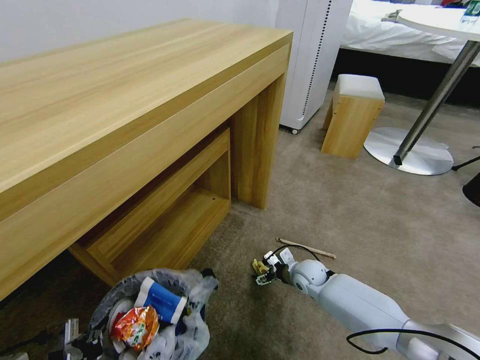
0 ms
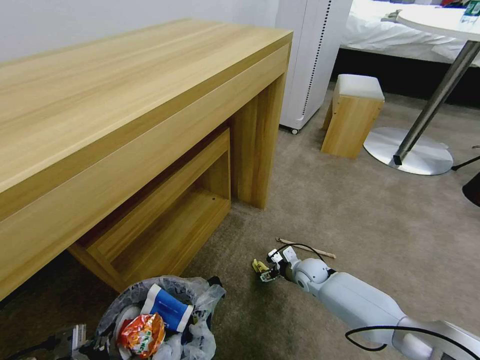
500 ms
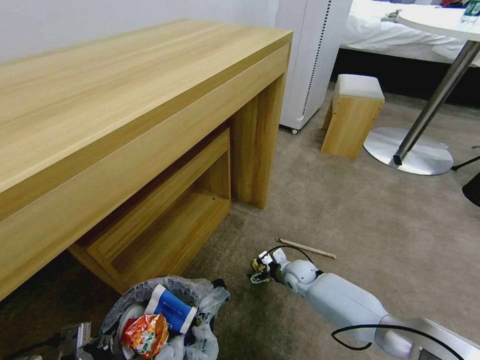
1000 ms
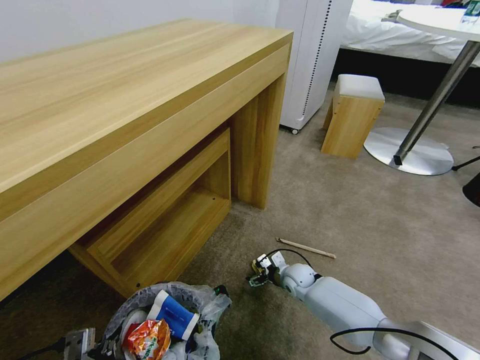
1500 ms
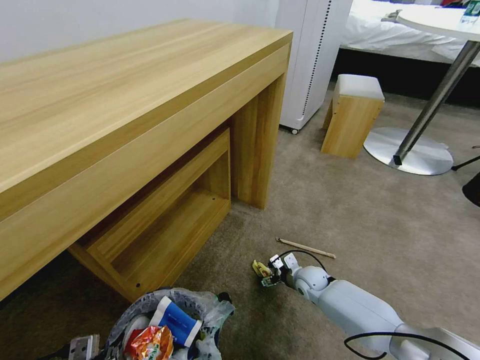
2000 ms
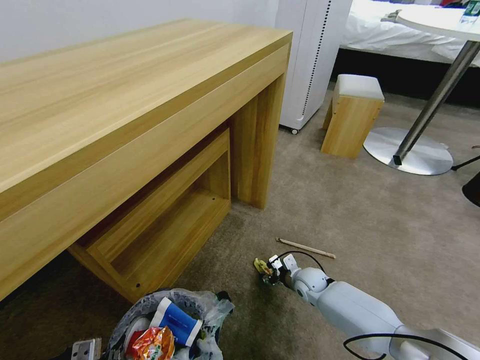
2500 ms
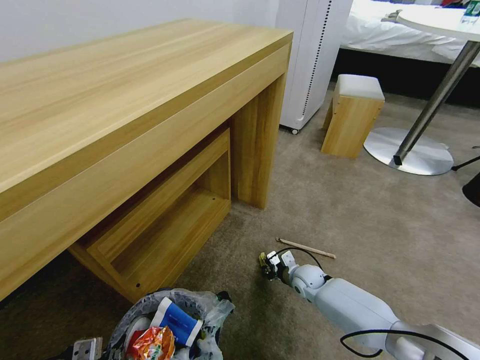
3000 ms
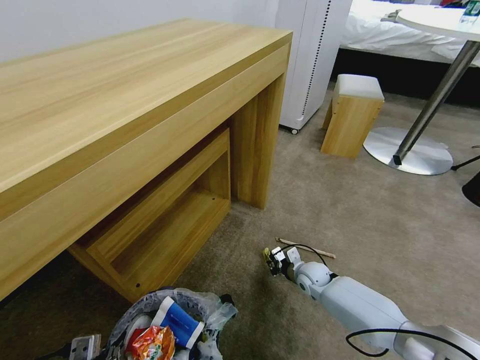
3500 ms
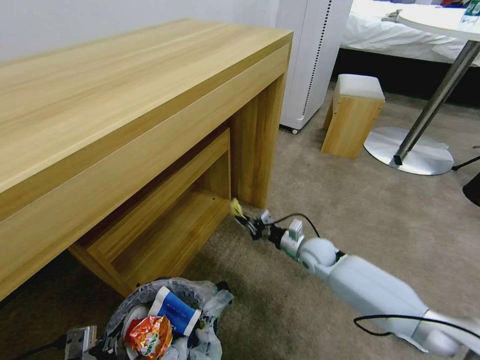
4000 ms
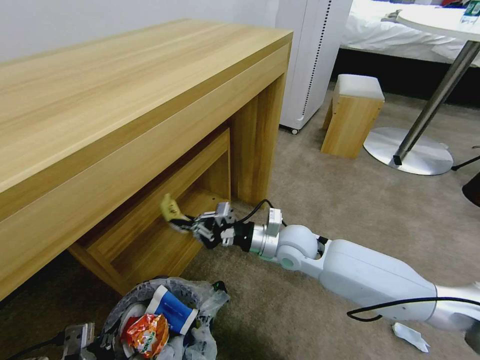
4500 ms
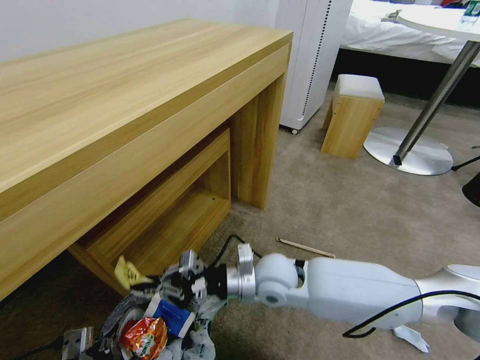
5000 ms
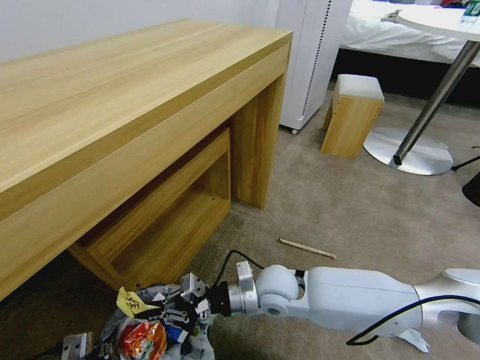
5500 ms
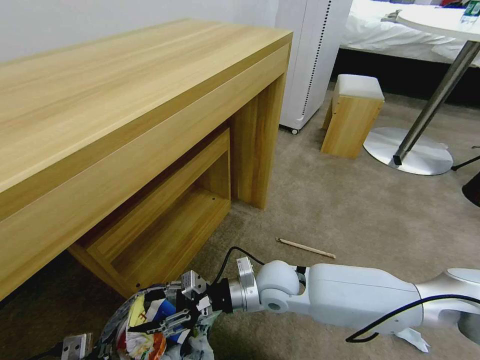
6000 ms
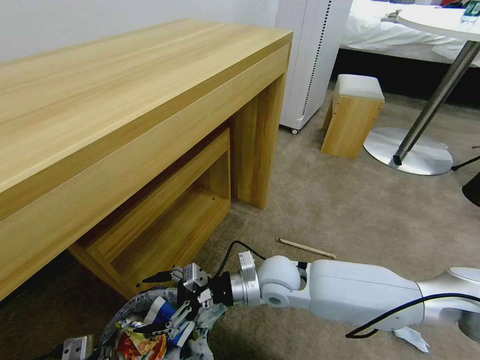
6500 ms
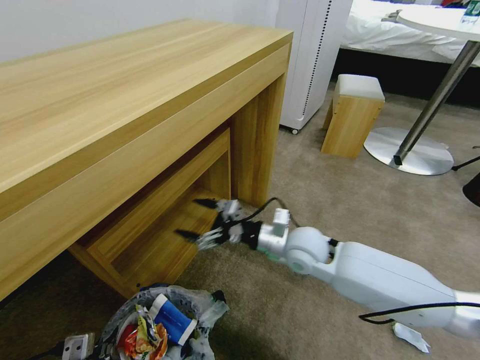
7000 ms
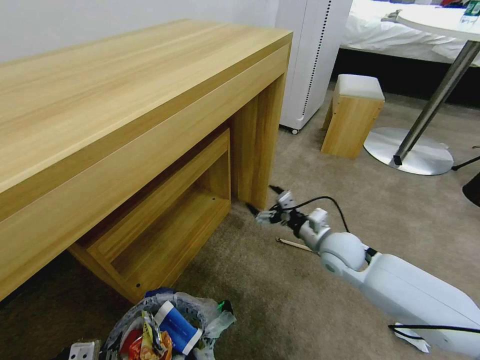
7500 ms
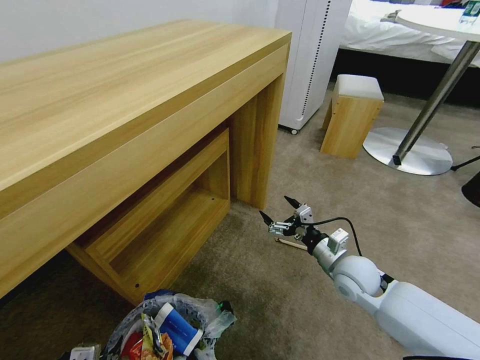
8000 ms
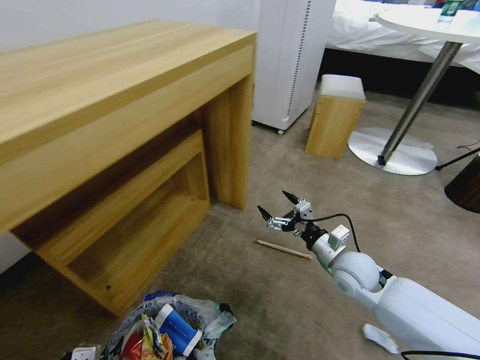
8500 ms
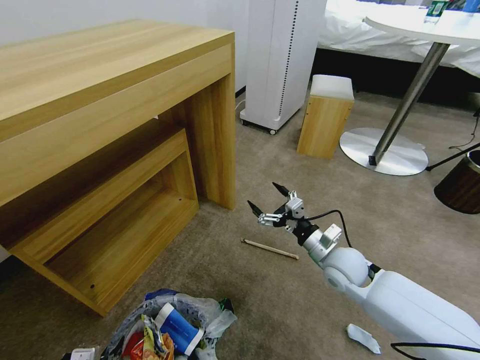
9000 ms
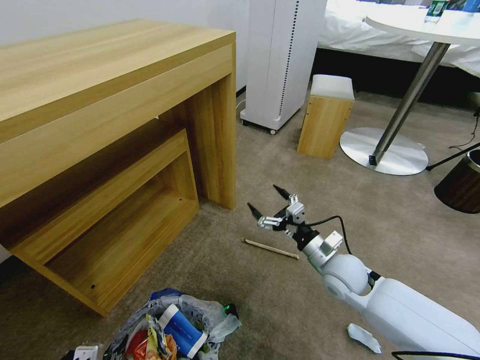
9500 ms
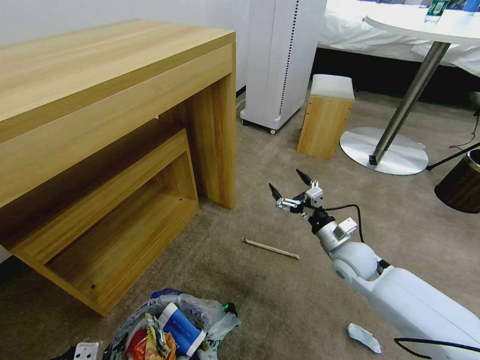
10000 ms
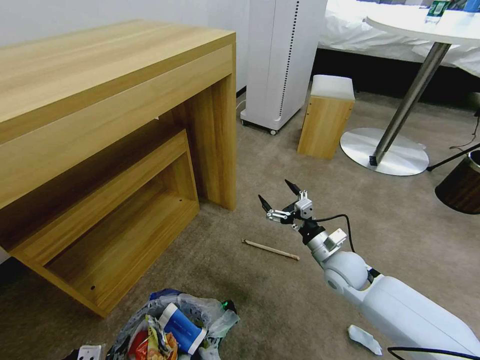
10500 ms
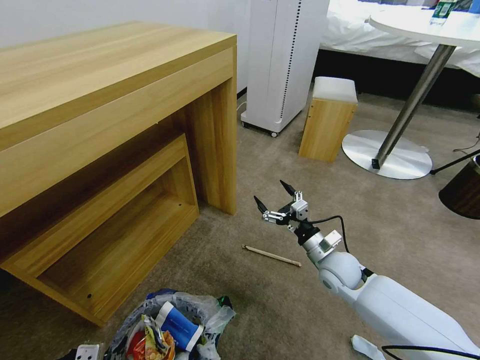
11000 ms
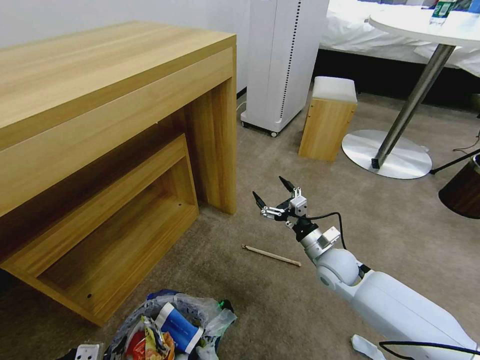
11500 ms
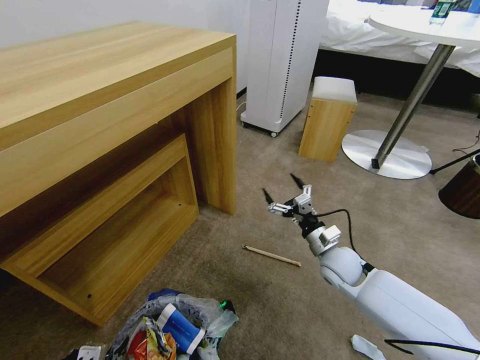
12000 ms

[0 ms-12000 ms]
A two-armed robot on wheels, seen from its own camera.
Task of the whole recording: Pick up the trash bin and place the garbage on the floor into it.
0 ms to 2000 ms: The grippers stay close to where they were, moving slightly.
2000 ms to 4000 ms: The right gripper travels upward by approximately 10 cm, and closes.
4000 ms to 6000 ms: The right gripper is displaced to the left, upward and backward by some 20 cm, and opens its fingers.
6000 ms to 8000 ms: The right gripper is displaced to the right by roughly 20 cm, and opens up.
10000 ms to 12000 ms: The grippers make only small movements.

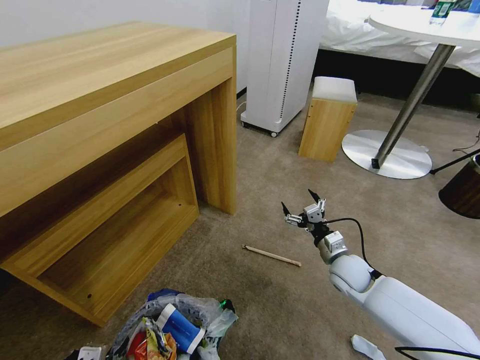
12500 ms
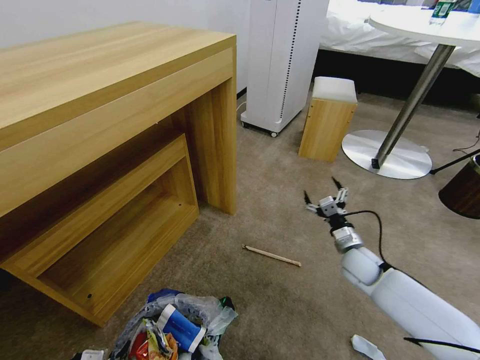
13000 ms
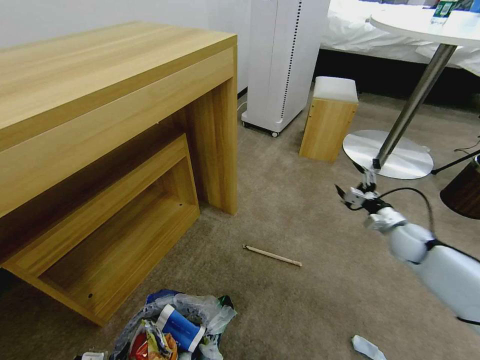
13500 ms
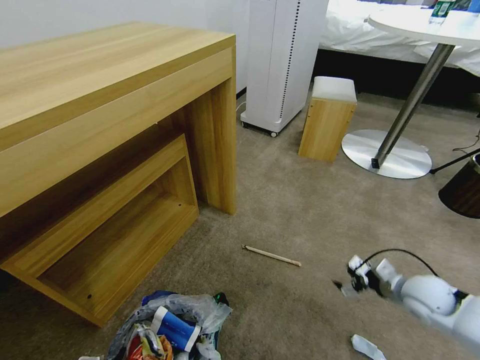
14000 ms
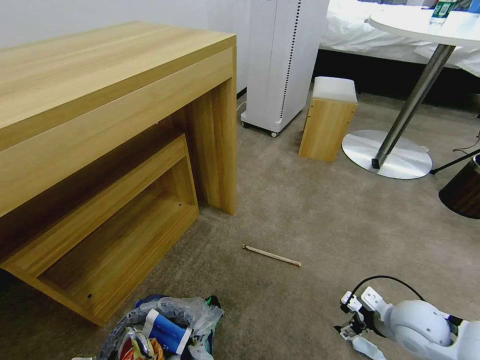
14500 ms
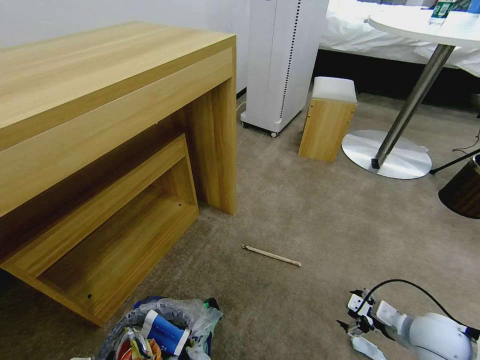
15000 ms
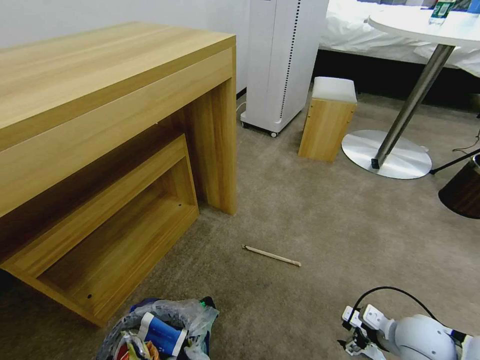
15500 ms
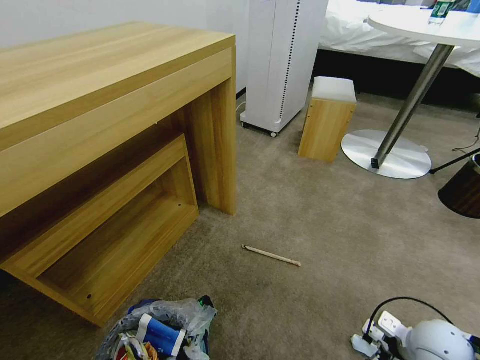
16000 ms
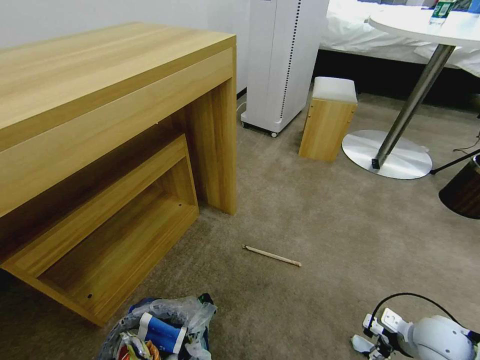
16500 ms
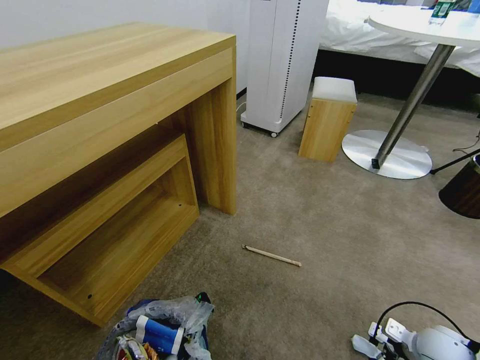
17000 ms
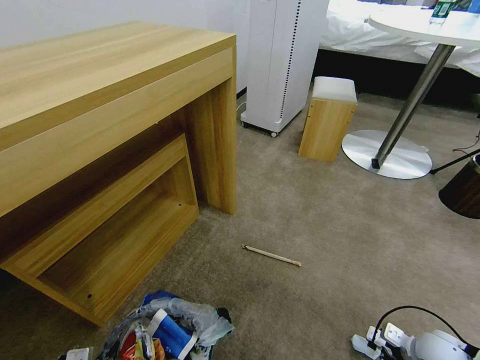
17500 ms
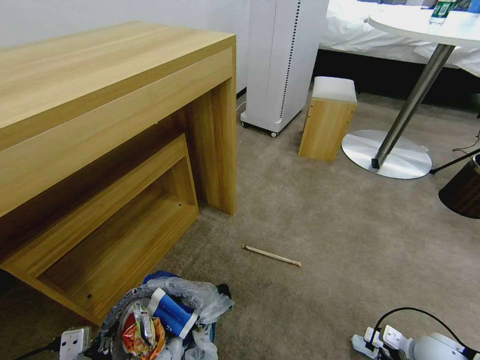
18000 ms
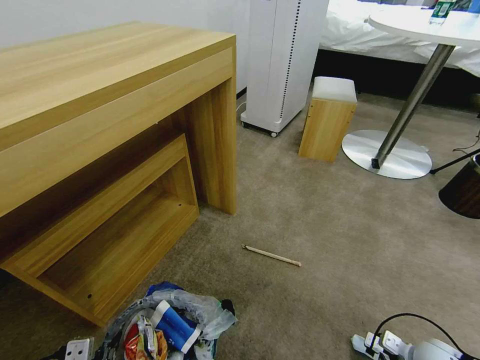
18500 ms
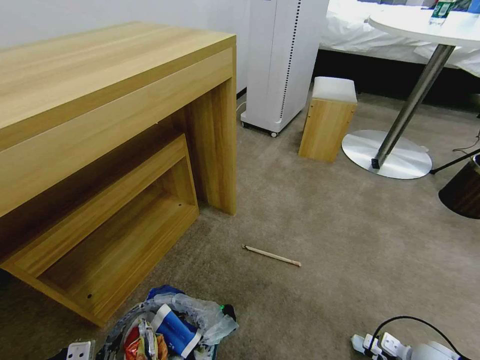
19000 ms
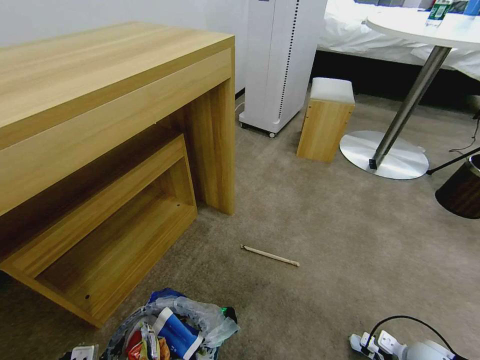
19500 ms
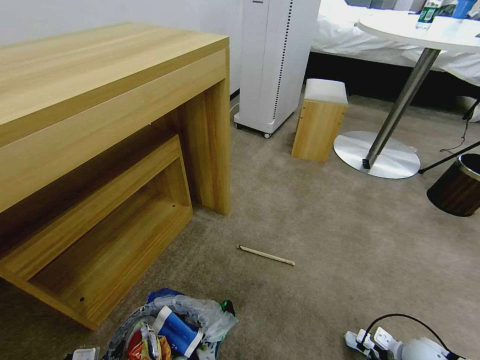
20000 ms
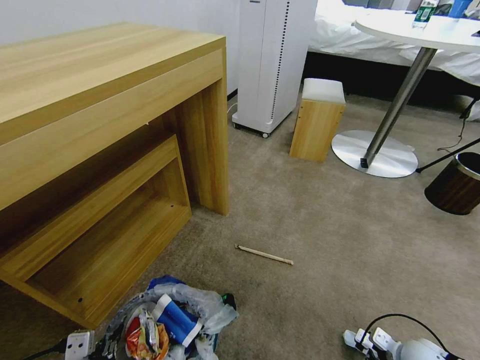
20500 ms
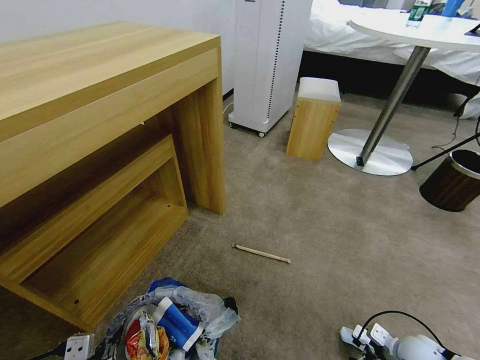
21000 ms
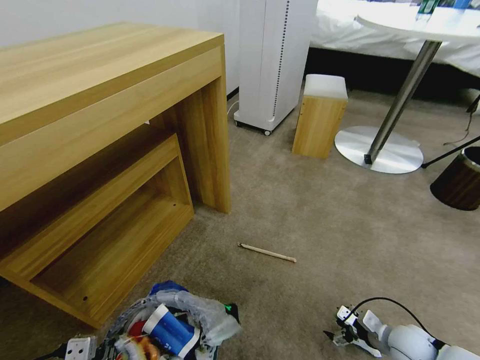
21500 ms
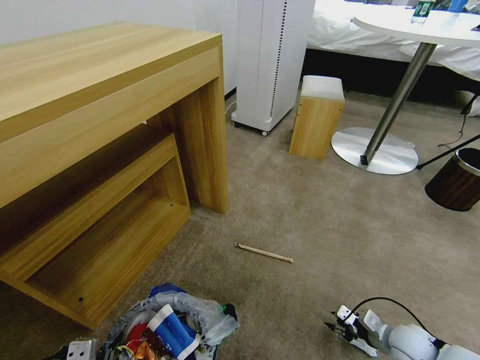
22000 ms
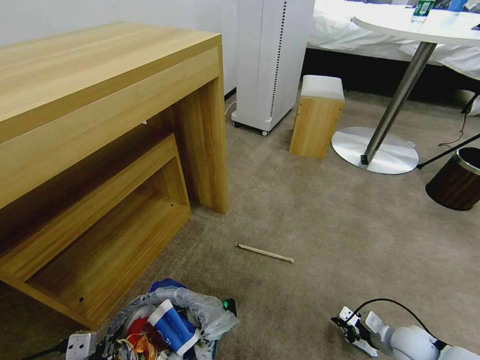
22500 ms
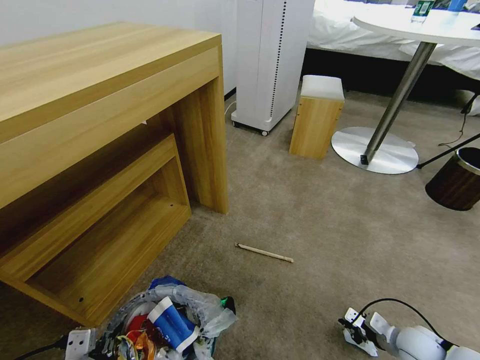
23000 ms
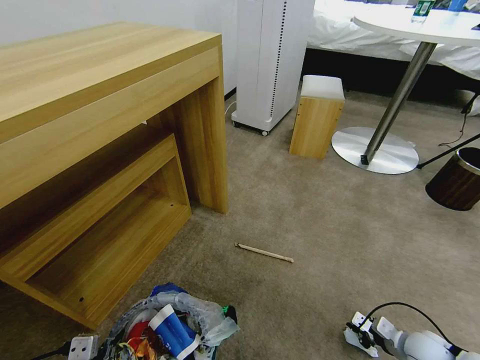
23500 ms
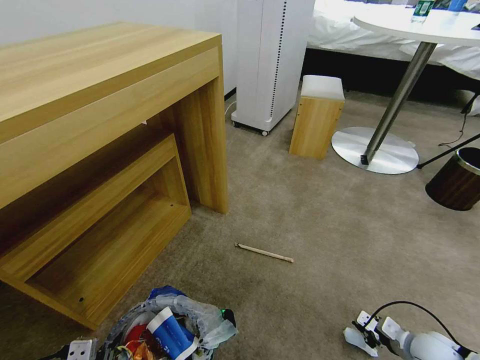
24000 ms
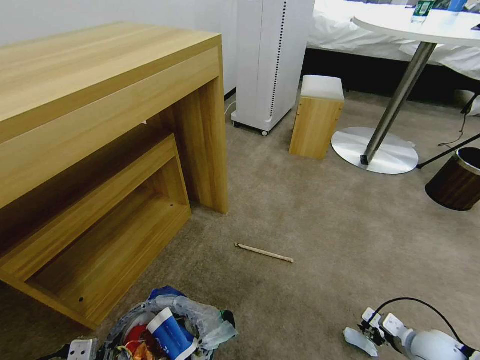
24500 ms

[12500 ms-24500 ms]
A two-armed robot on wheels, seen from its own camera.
Task of the whole recording: Pick up the trash bin and place the garbage on the floor into it.
12500 ms to 14500 ms: The right gripper heads backward and to the right, covering roughly 15 cm.
14500 ms to 16500 ms: The right gripper goes about 5 cm to the right.
16500 ms to 18500 ms: The left gripper is displaced upward by some 5 cm. The right gripper is displaced downward by roughly 10 cm.
18500 ms to 20500 ms: The grippers make only small movements.
20500 ms to 22500 ms: The right gripper closes its fingers.
22500 ms to 24500 ms: The right gripper opens up.

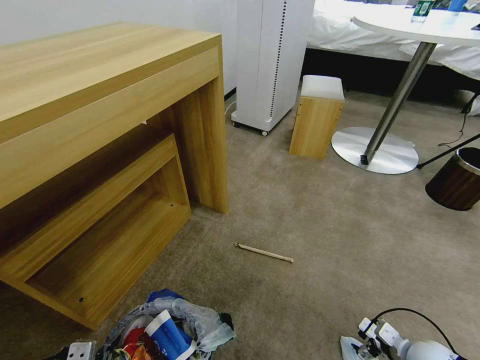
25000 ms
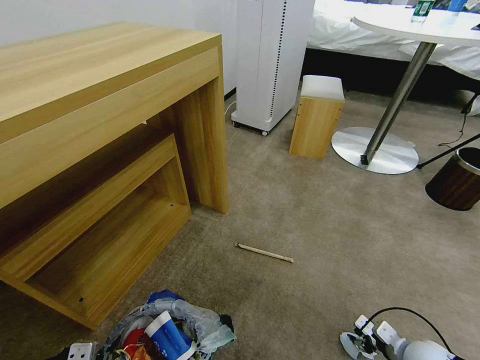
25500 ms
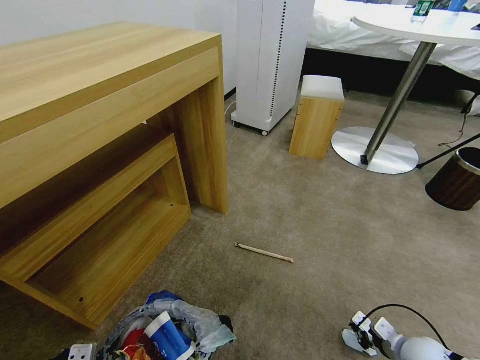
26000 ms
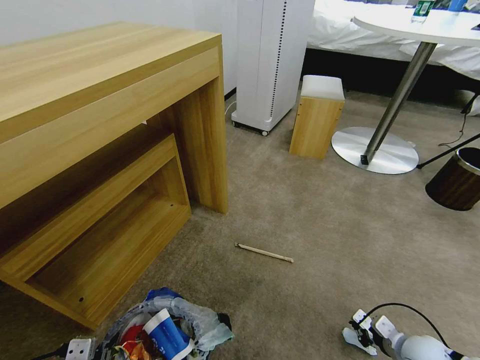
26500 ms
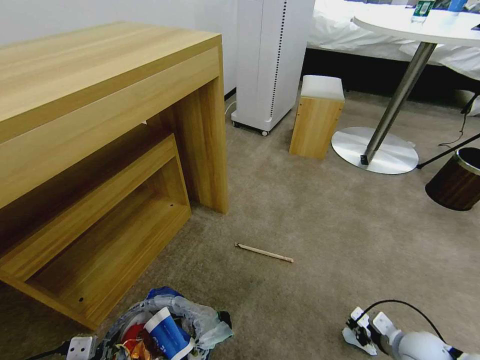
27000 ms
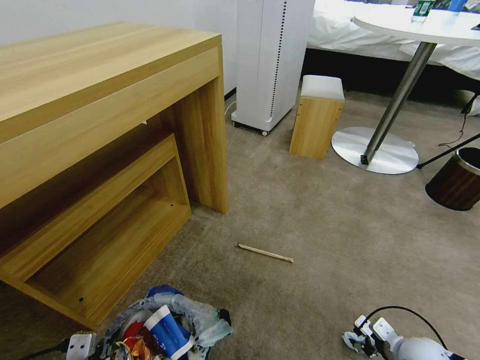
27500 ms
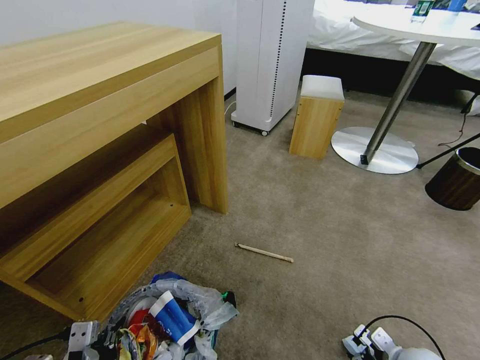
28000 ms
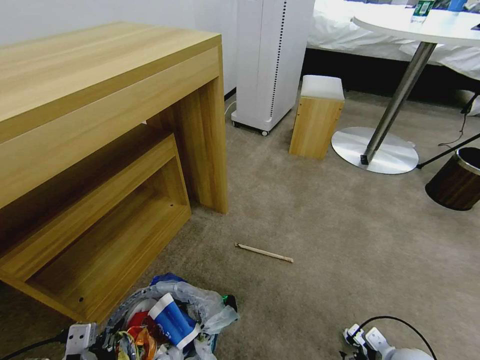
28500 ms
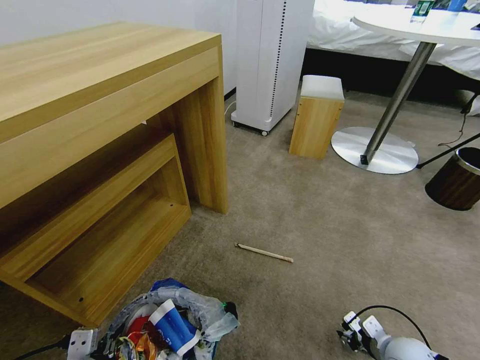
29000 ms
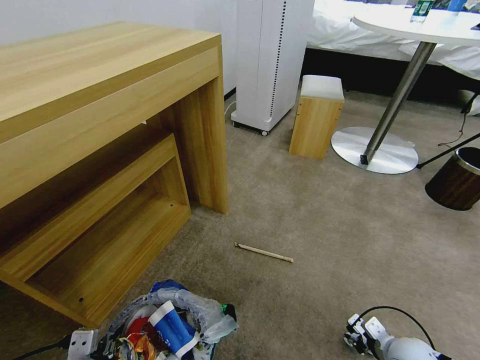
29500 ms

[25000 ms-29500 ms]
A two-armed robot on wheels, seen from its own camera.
Task of the whole recording: Pick up the trash bin and place the garbage on the floor into it.
25000 ms to 27000 ms: The right gripper closes its fingers.
27000 ms to 29500 ms: The right gripper opens and closes again.
